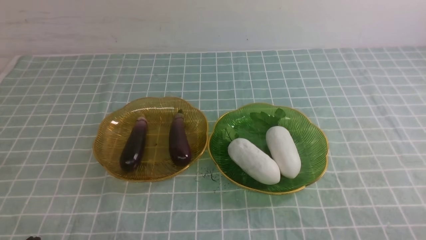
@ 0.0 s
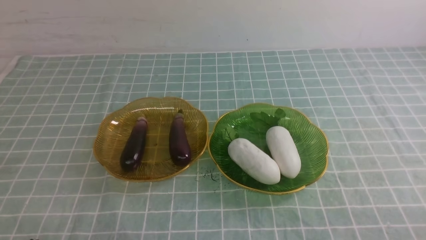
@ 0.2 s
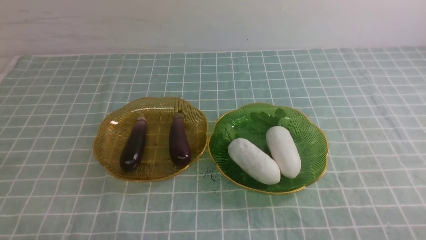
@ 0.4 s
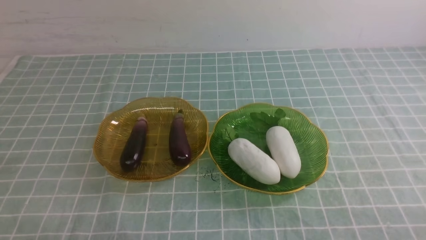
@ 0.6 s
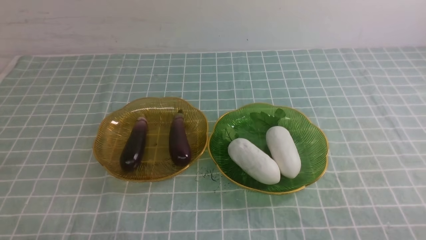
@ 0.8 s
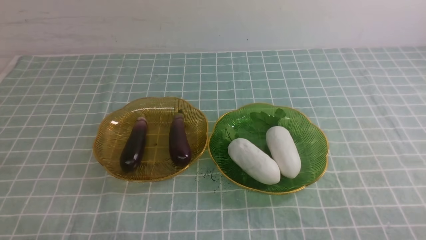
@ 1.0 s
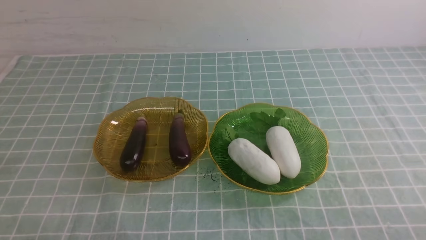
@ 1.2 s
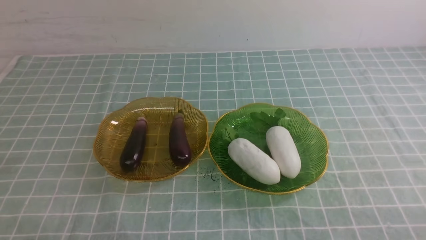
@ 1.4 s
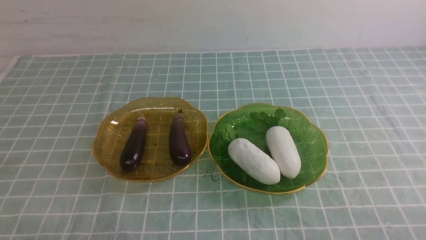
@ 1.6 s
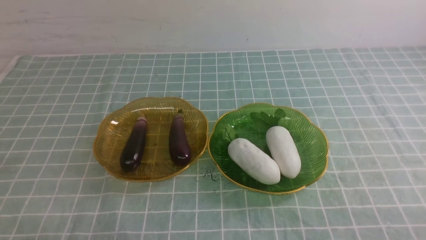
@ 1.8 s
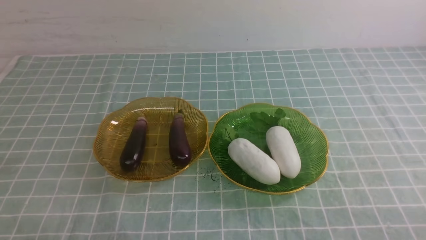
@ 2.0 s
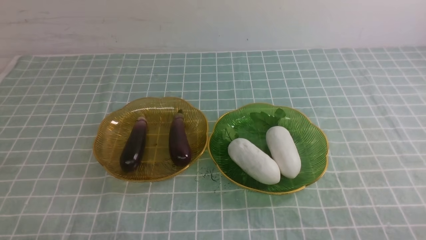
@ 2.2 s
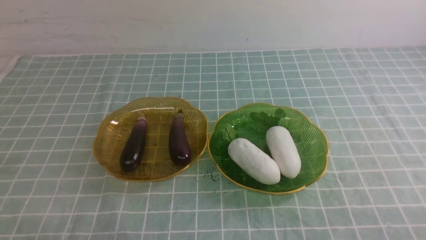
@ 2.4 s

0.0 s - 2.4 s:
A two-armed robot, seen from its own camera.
1.2 s - 2.4 s: The two grippers keep their place.
